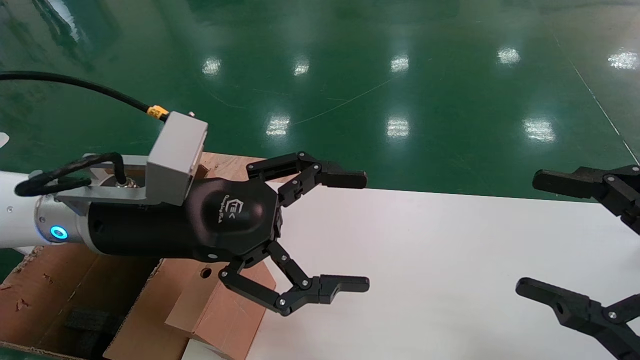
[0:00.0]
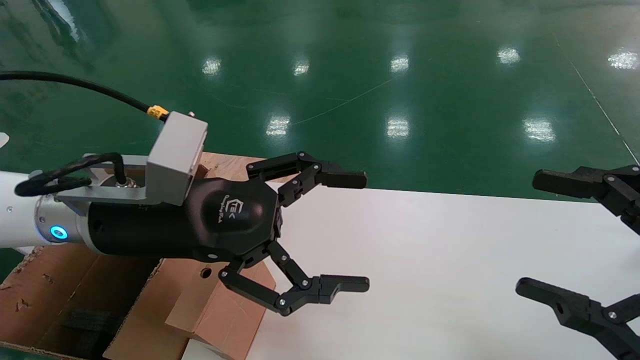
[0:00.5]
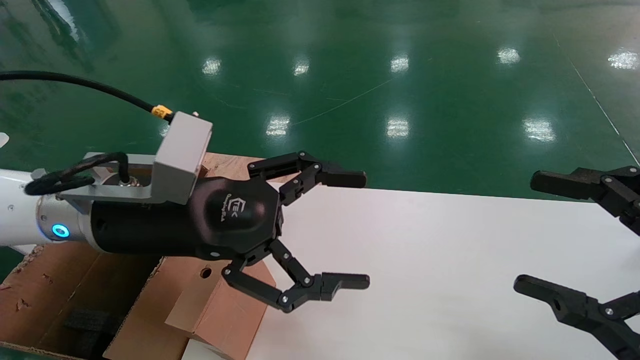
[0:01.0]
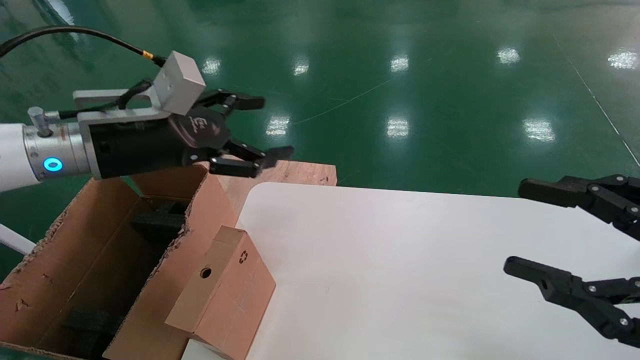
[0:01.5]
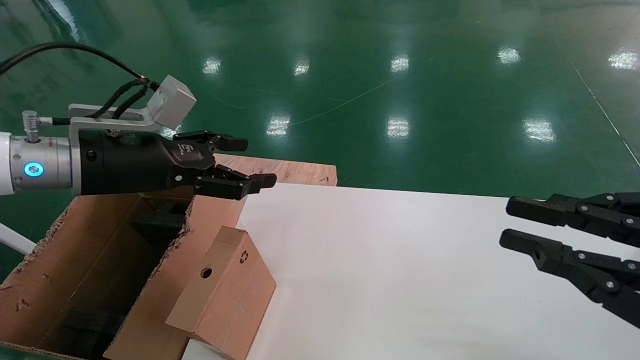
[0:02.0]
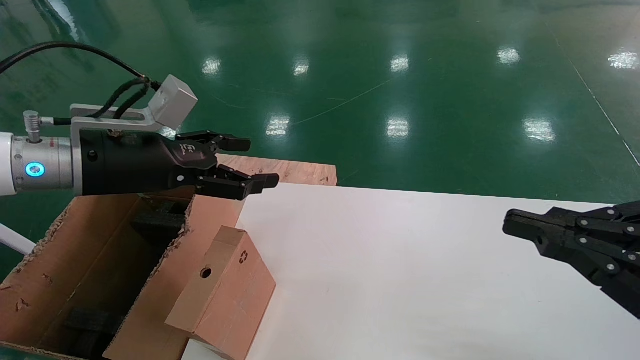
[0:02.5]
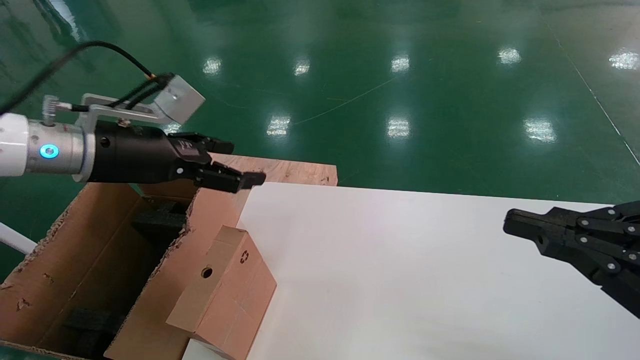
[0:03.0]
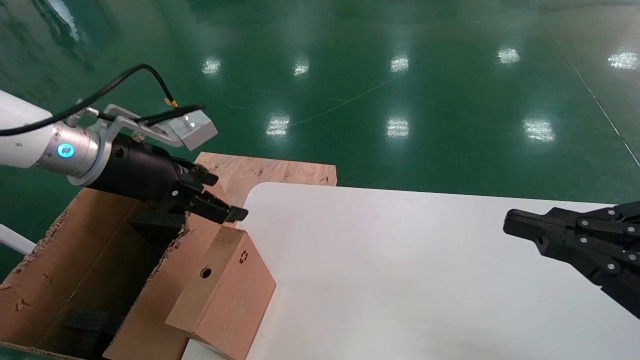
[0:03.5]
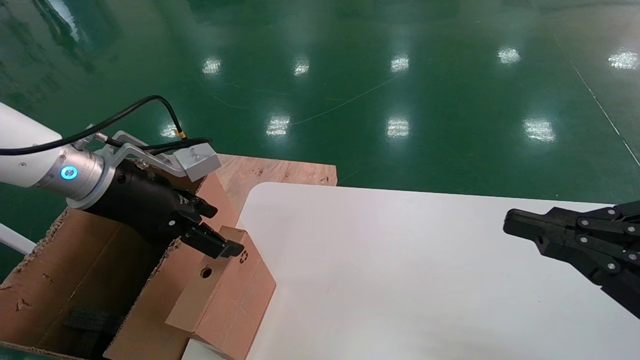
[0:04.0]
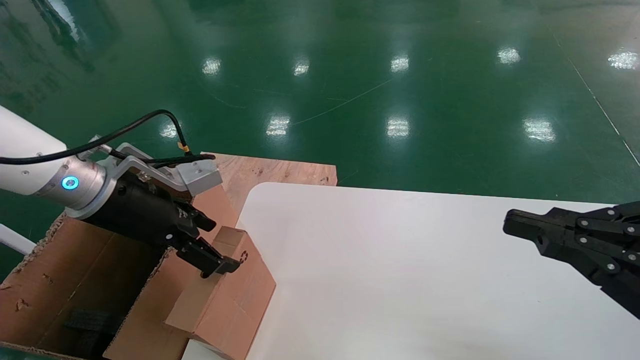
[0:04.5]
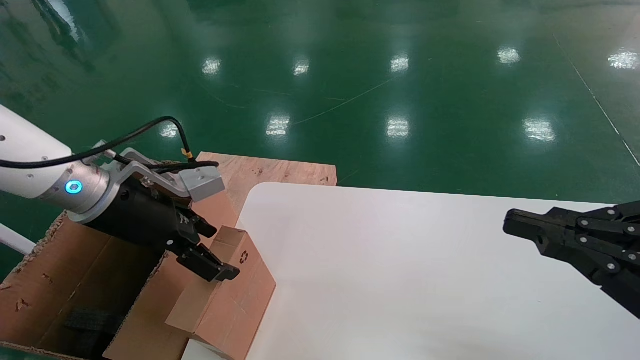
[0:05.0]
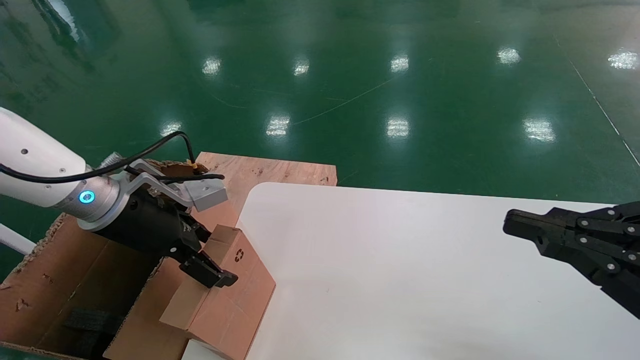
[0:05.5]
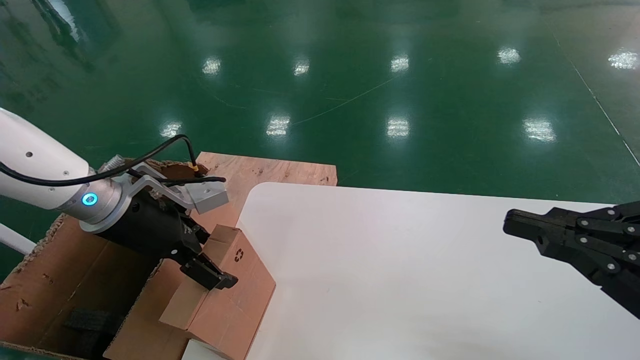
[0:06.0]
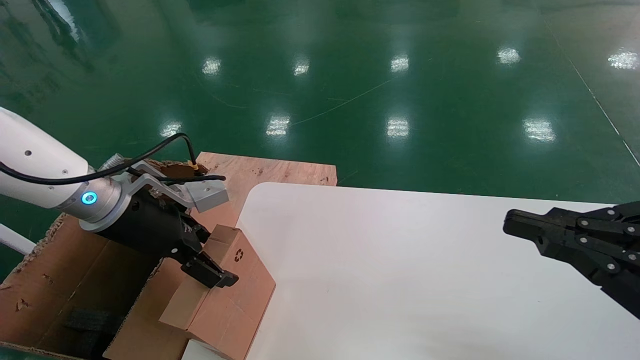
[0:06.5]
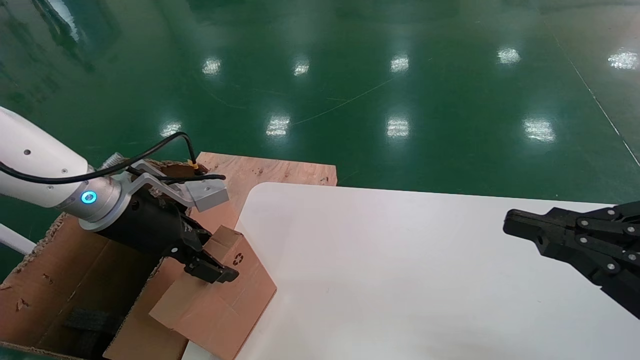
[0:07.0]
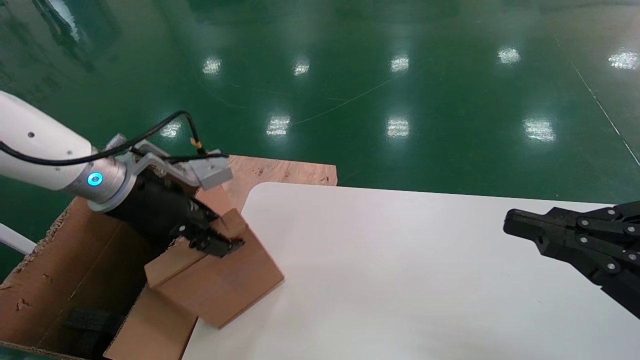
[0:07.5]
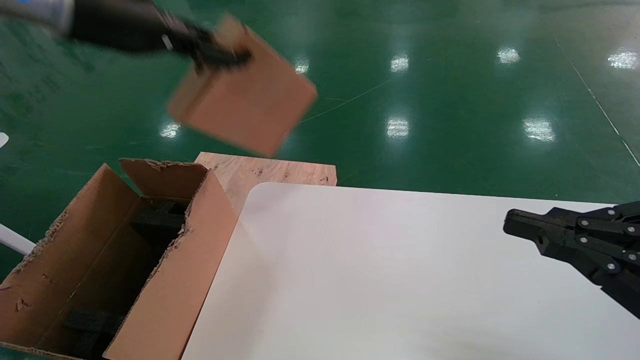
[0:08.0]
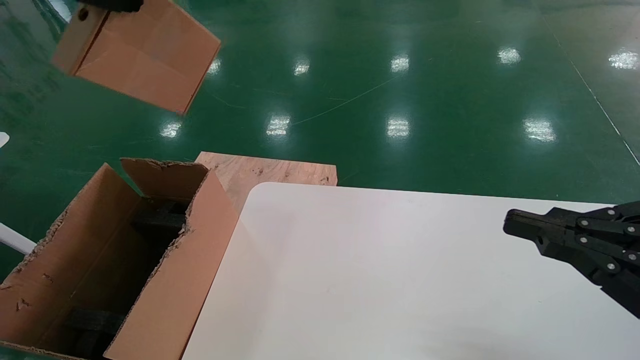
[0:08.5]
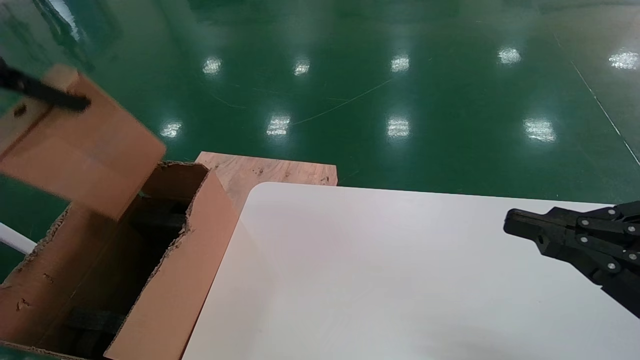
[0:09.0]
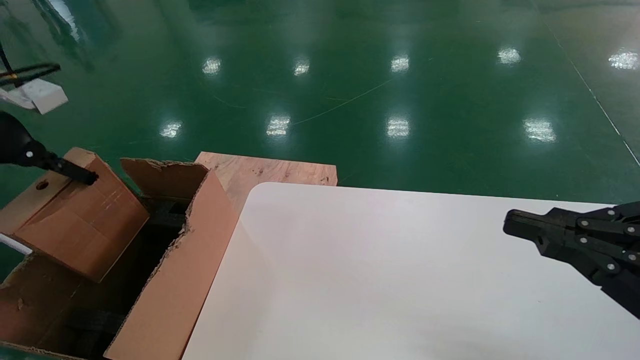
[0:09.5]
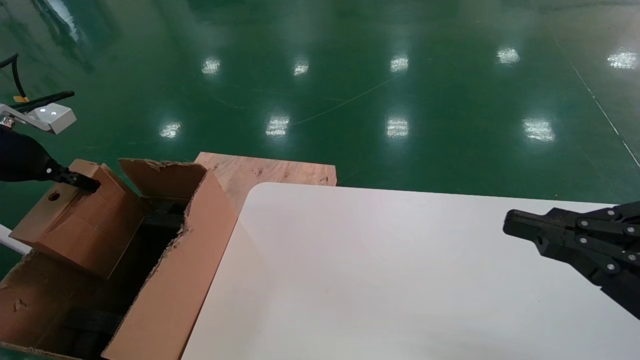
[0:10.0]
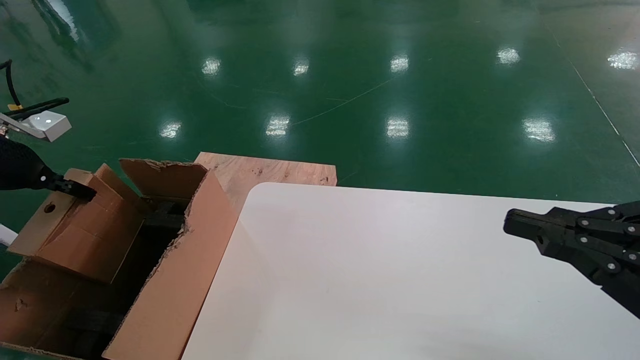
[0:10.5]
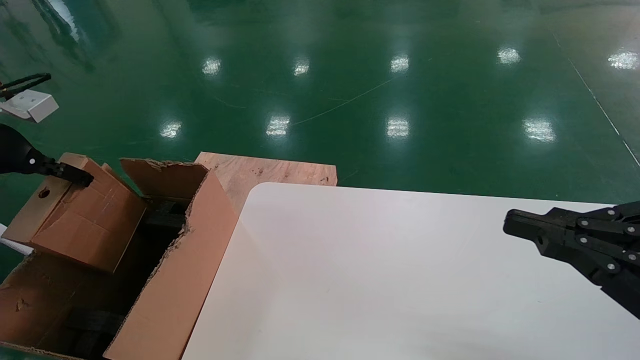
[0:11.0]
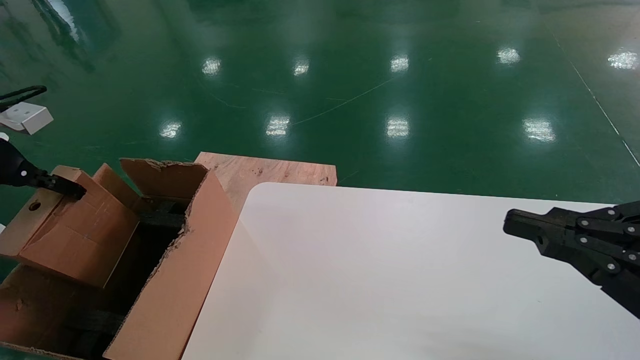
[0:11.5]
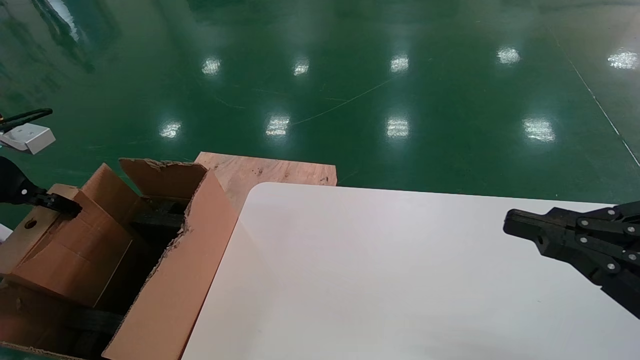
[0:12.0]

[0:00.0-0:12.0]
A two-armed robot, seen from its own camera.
Task of the whole recording: place the small box on the table into the large box on the left.
Step, 0:01.5 to 0:07.5: Pick up the mouse and the power cord paper box.
0:00.0 to 0:02.0: The left gripper travels to the left by about 10 cm; the right gripper closes up.
0:04.0 to 0:06.0: The grippers move only a little.
0:06.0 to 0:08.0: The left gripper goes about 20 cm upward, and closes.
0:08.0 to 0:10.0: The left gripper is displaced to the left and downward by approximately 25 cm.
0:10.0 to 0:12.0: There are only small adjustments of the grippers.

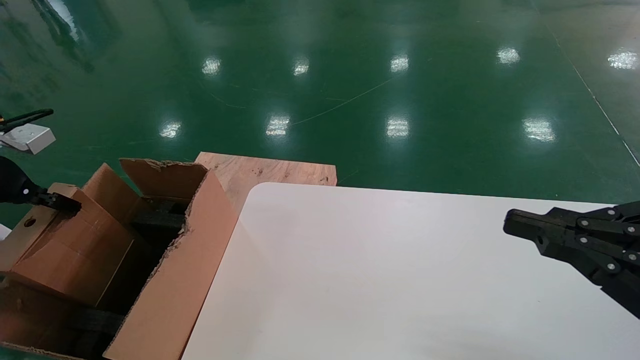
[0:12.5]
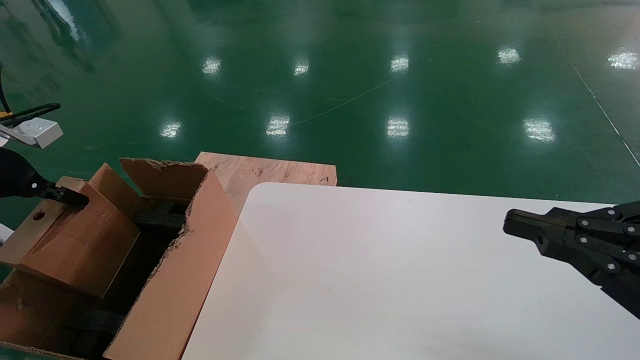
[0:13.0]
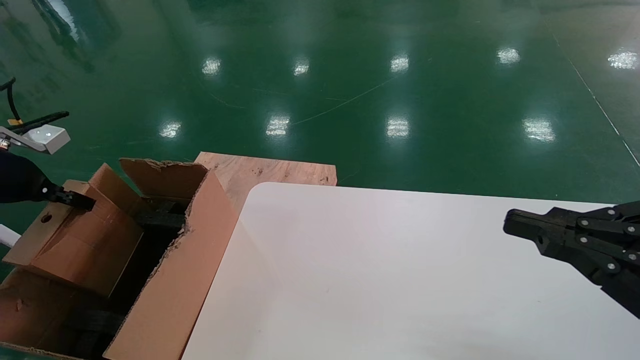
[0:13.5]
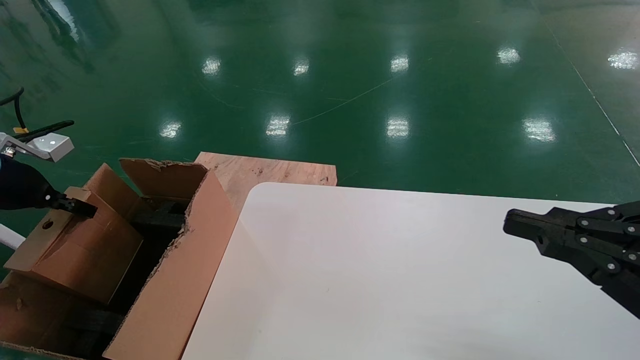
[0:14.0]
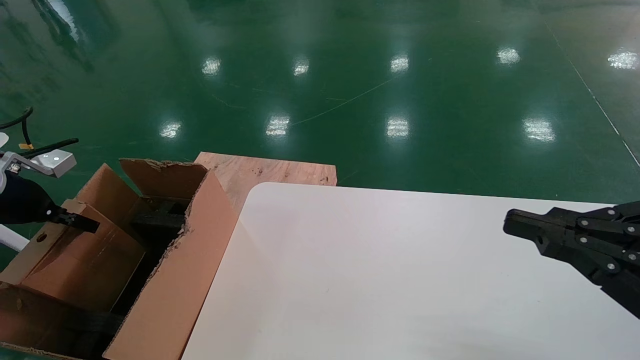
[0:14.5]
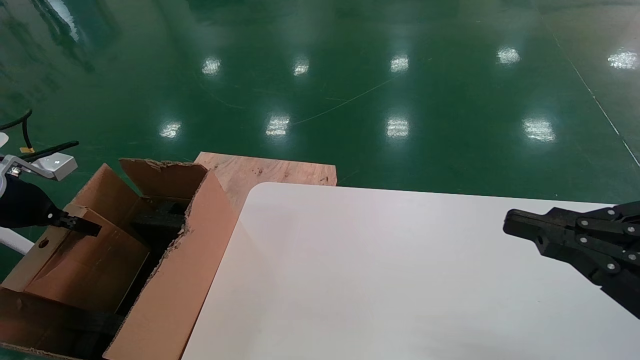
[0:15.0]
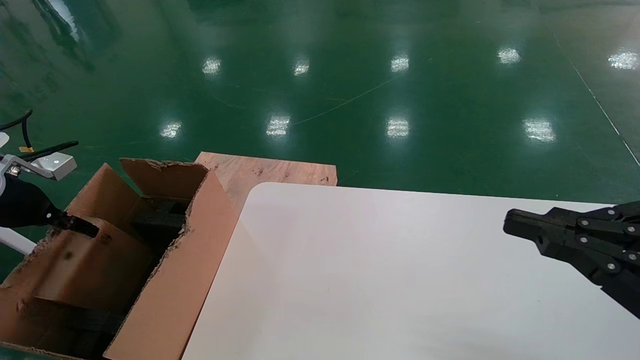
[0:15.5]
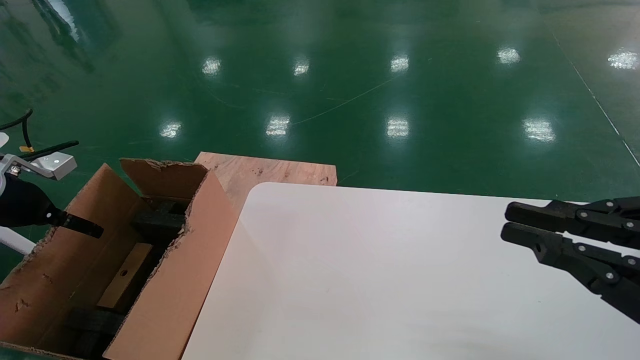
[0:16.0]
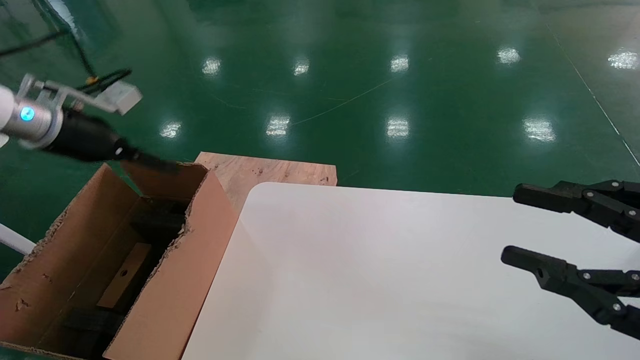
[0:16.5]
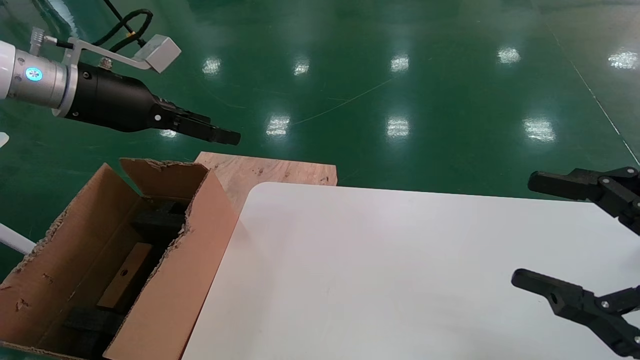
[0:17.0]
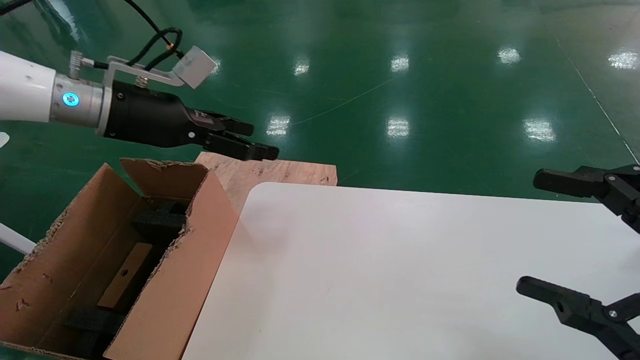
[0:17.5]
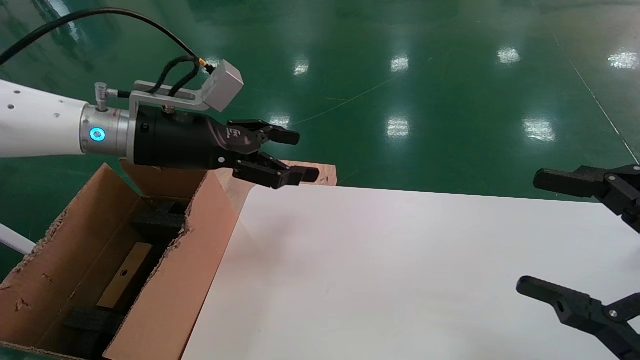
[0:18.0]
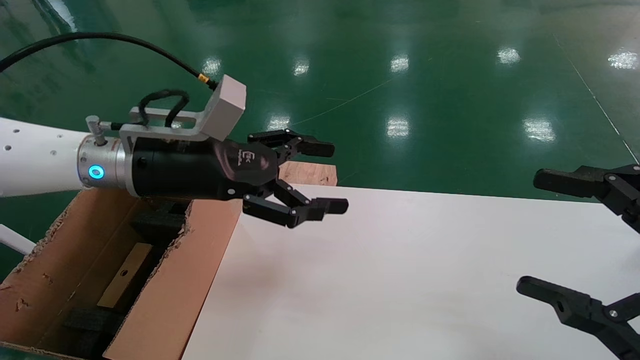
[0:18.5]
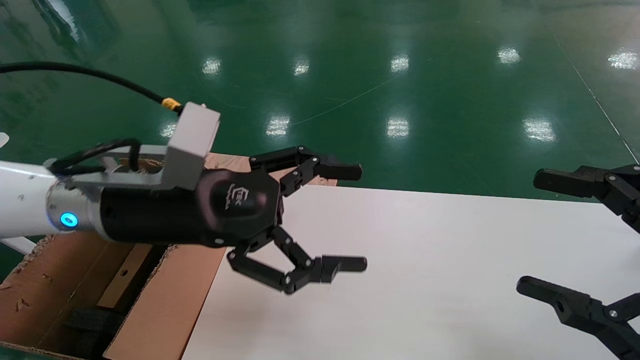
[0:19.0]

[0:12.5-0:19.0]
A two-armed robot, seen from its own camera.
Task of the whole recording: place the small box on the table into the large box on the left.
Step, 0:12.5 to 0:15.5: Place the mouse and the power cord paper box into the container.
0:12.5 to 0:14.5: The left gripper heads downward, covering roughly 5 cm.
0:14.5 to 0:17.0: The right gripper opens up. Meanwhile the left gripper shifts roughly 20 cm to the right and upward, and opens up.
0:17.0 to 0:19.0: The left gripper is displaced to the right, backward and downward by approximately 20 cm.
